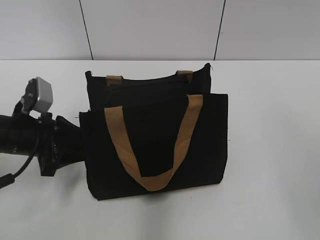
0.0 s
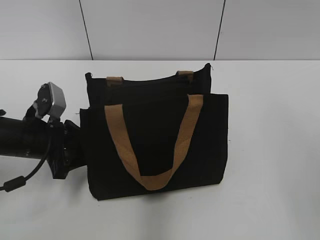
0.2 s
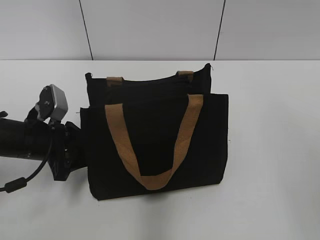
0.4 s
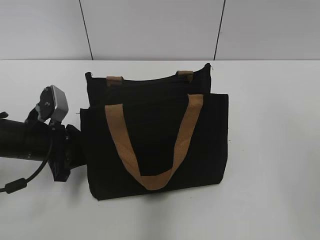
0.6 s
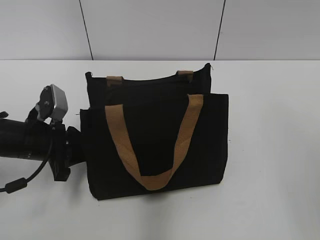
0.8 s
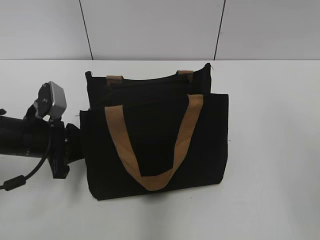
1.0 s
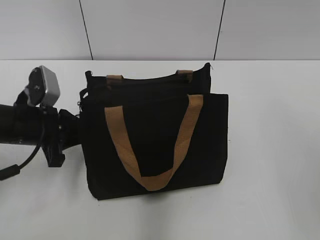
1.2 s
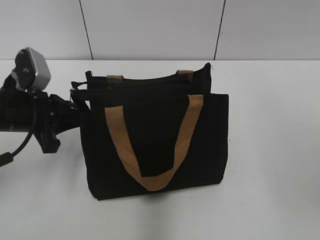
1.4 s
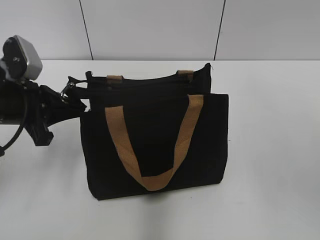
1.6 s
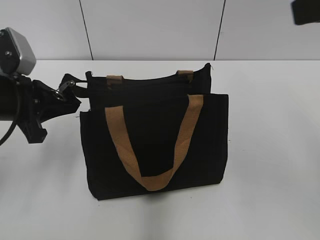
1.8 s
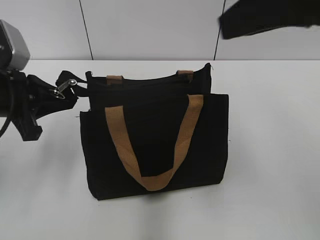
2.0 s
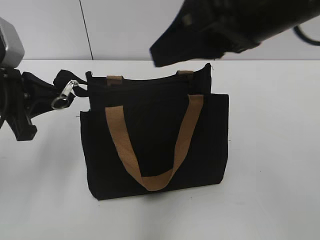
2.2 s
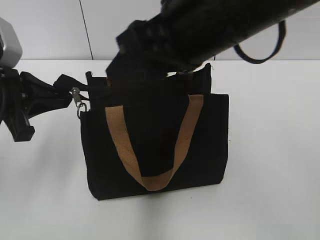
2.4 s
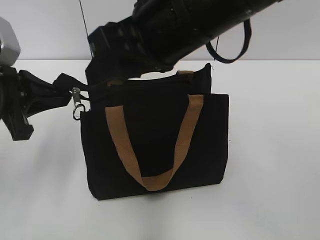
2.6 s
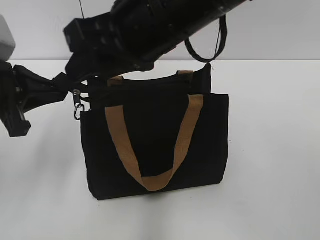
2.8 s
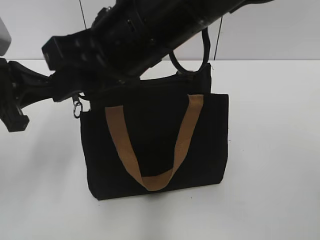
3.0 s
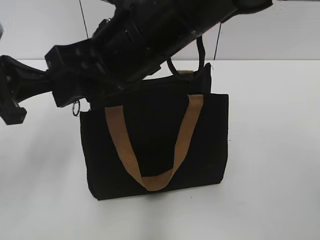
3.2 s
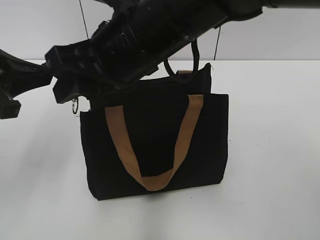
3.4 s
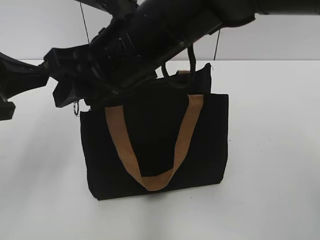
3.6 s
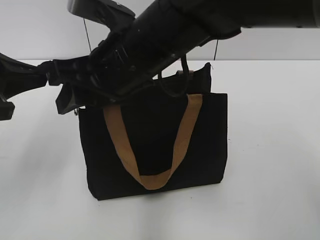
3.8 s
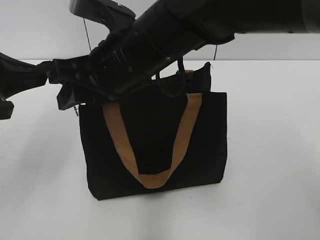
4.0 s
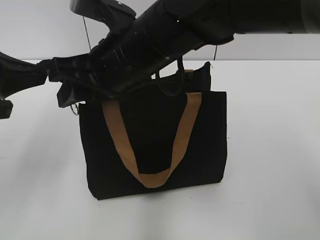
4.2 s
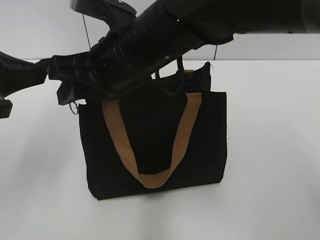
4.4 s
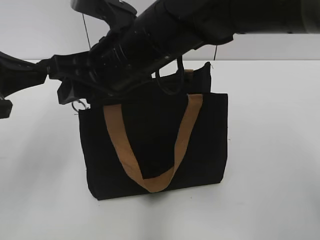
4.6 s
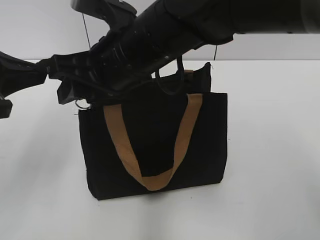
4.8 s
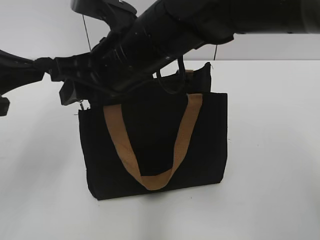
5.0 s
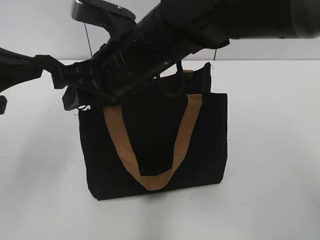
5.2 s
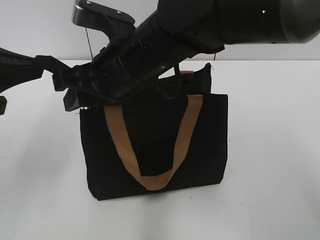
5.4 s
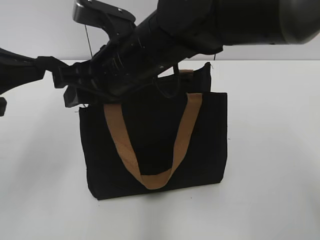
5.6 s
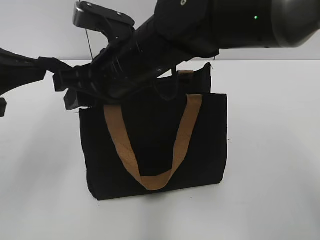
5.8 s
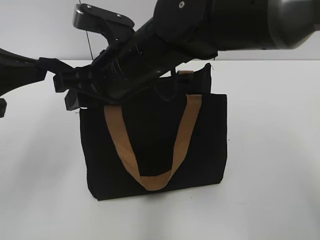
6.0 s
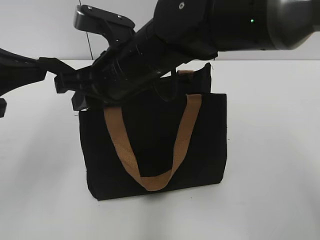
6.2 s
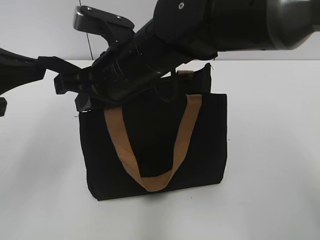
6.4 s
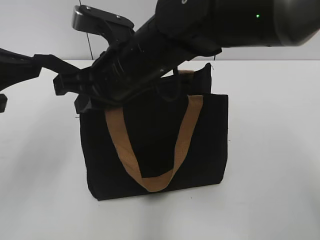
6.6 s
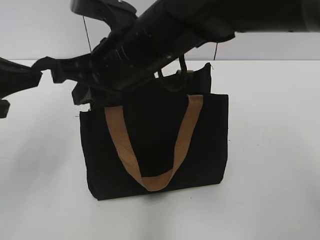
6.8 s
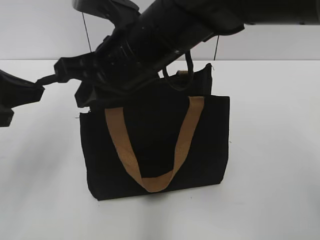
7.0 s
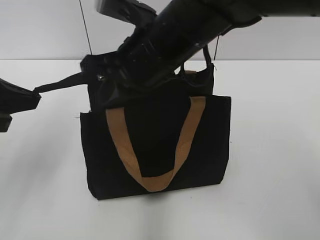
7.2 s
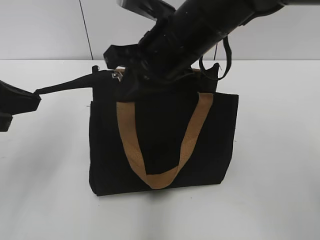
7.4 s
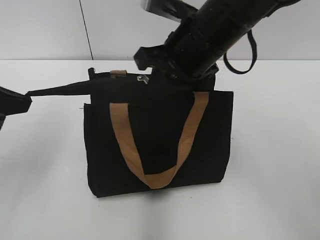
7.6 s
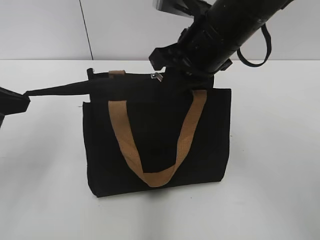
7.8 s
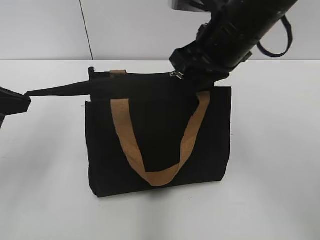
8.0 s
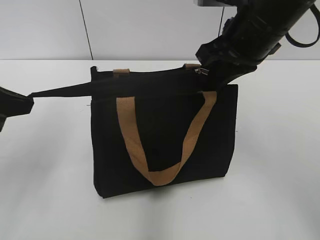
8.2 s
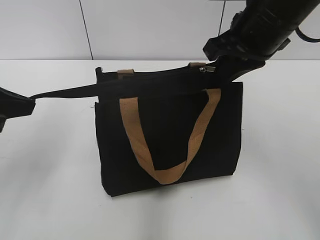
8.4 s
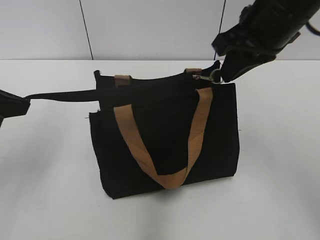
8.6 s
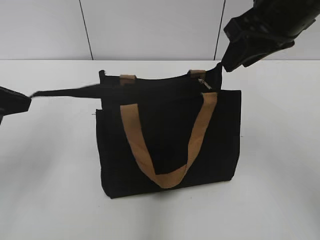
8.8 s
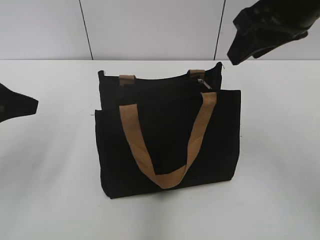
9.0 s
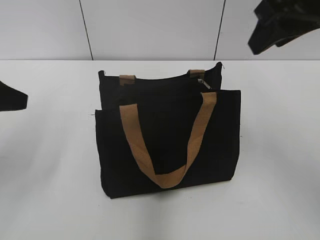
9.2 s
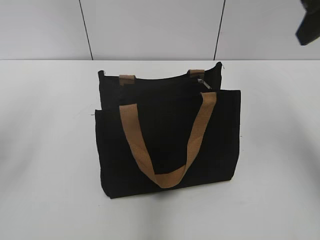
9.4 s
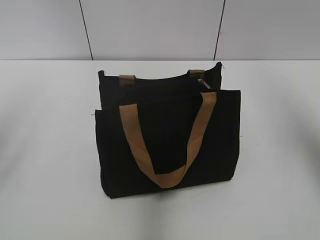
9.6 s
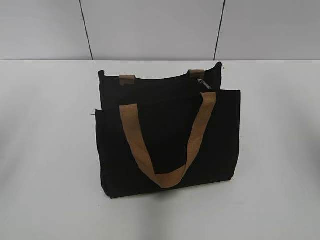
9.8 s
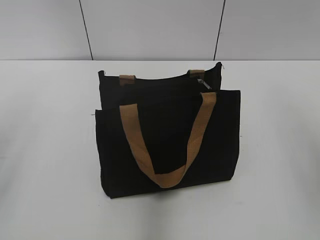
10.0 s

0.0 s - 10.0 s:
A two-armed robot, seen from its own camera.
Step, 0.0 s - 8.6 s: Zip up the bag with your right hand.
0.0 s - 1.4 s: The left gripper closes up.
1.4 s - 2.8 s: The left gripper goes some 5 cm upward; the right gripper goes roughly 25 cm to the left and forward.
2.8 s - 4.2 s: The right gripper shifts about 5 cm downward.
4.2 s - 5.8 s: There are only small adjustments of the grippers.
5.8 s - 7.2 s: The right gripper closes up.
7.2 s - 8.6 s: The right gripper travels to the right by approximately 15 cm.
8.6 s - 10.0 s: The left gripper heads upward, covering approximately 10 cm, and opens up; the right gripper heads backward, to the right and upward, covering approximately 20 cm, and opens up.

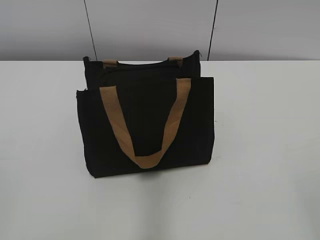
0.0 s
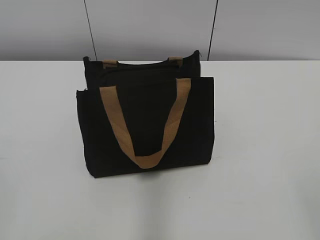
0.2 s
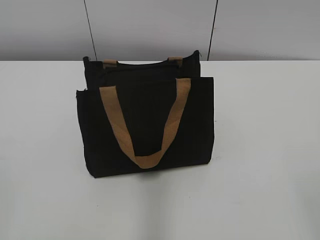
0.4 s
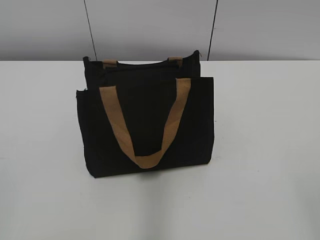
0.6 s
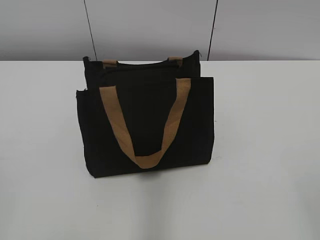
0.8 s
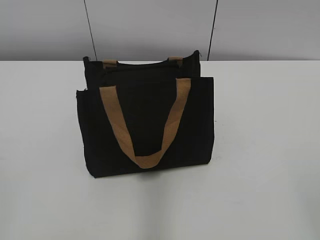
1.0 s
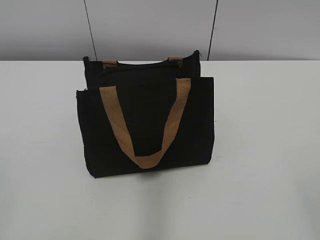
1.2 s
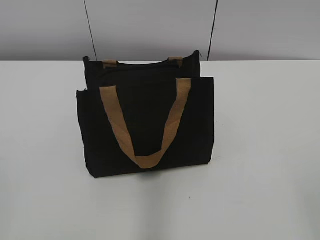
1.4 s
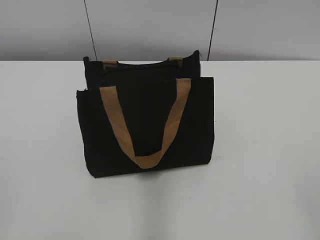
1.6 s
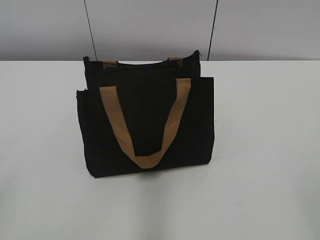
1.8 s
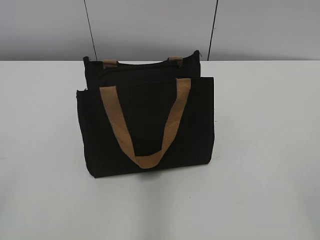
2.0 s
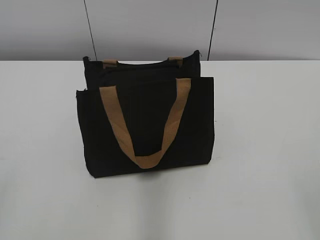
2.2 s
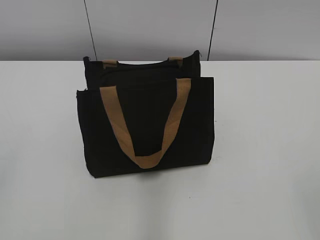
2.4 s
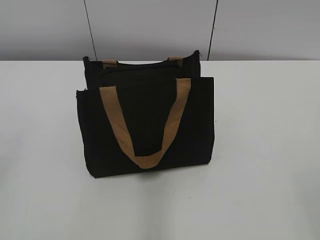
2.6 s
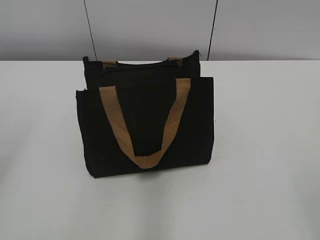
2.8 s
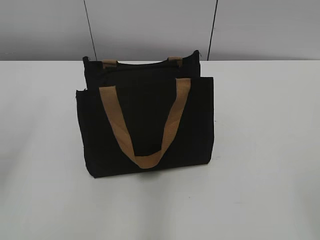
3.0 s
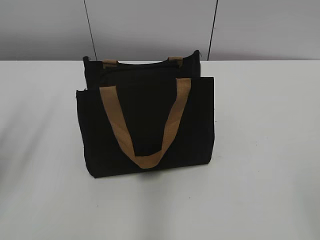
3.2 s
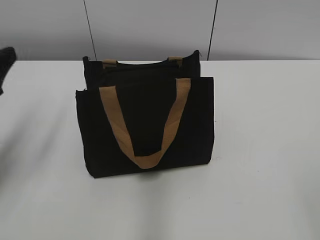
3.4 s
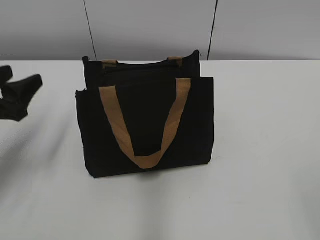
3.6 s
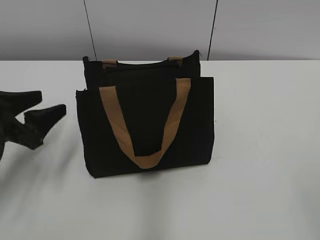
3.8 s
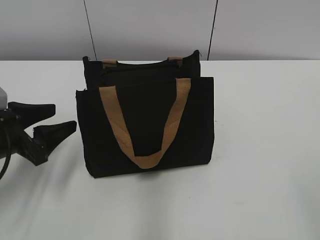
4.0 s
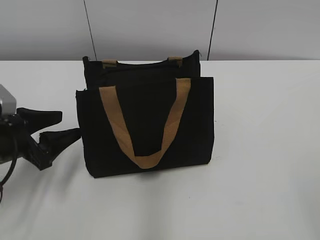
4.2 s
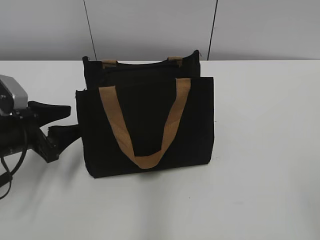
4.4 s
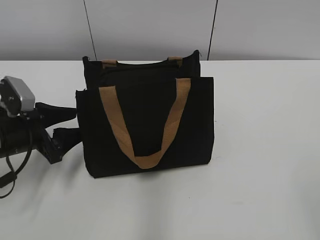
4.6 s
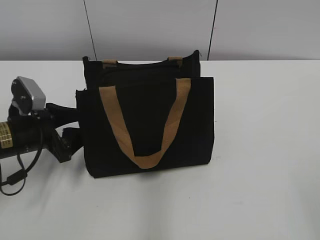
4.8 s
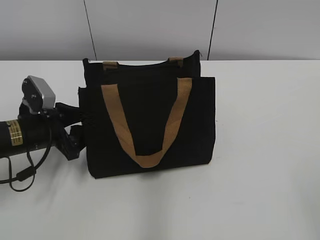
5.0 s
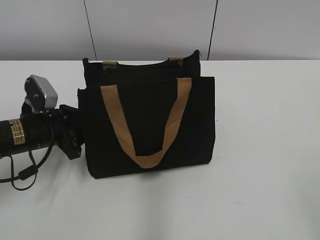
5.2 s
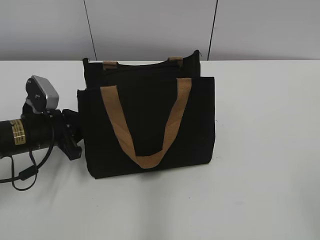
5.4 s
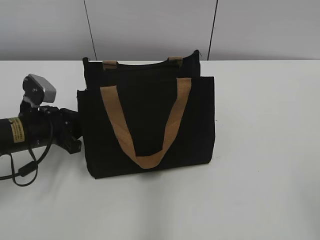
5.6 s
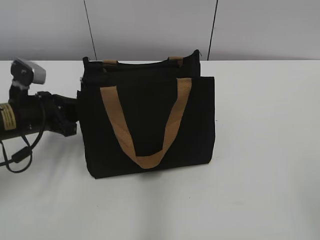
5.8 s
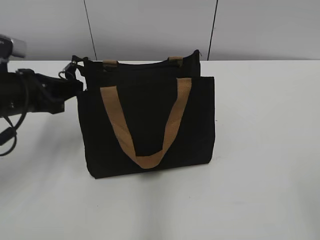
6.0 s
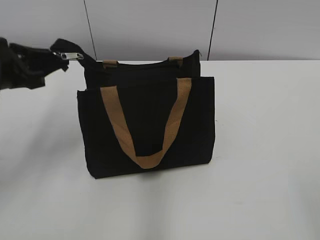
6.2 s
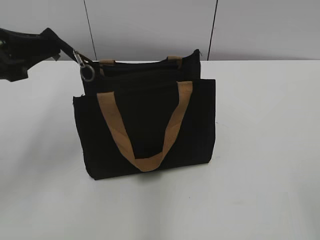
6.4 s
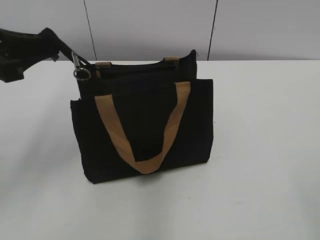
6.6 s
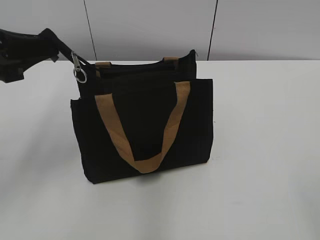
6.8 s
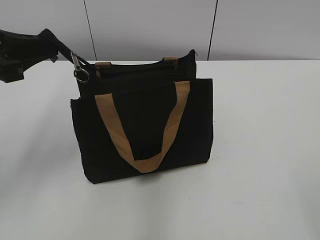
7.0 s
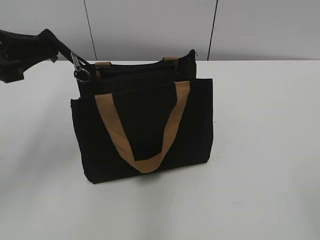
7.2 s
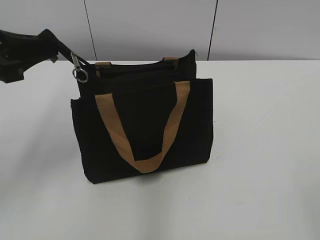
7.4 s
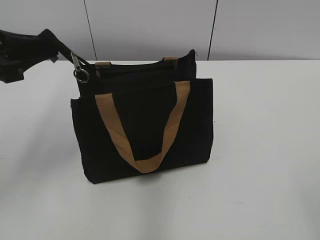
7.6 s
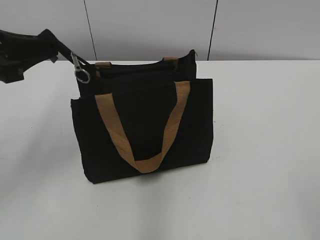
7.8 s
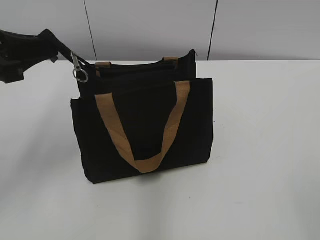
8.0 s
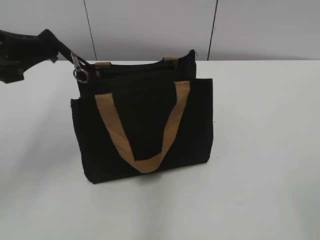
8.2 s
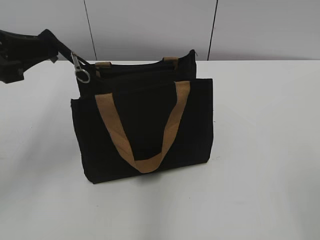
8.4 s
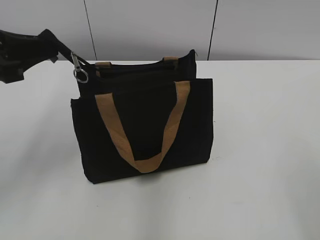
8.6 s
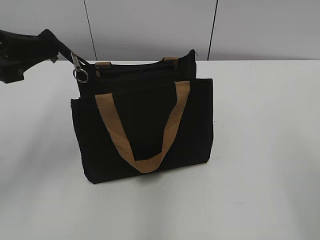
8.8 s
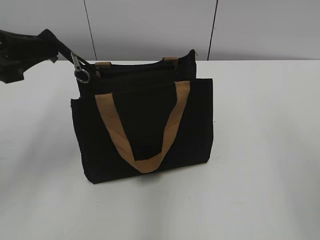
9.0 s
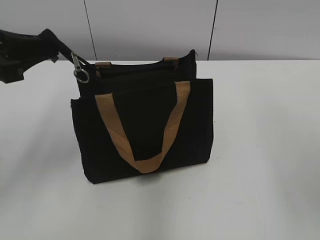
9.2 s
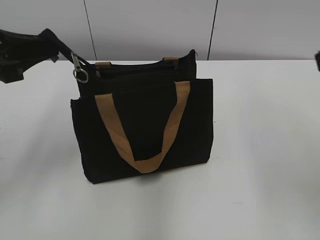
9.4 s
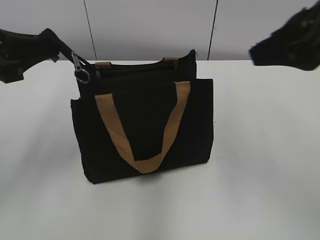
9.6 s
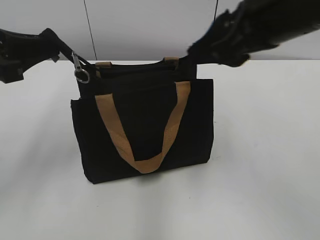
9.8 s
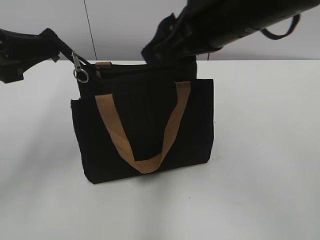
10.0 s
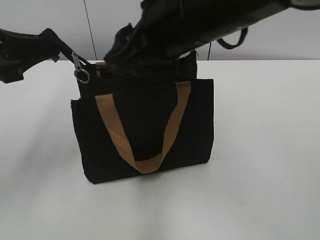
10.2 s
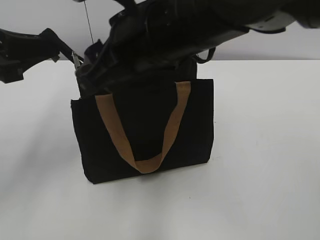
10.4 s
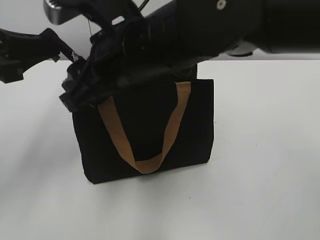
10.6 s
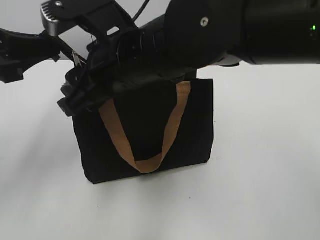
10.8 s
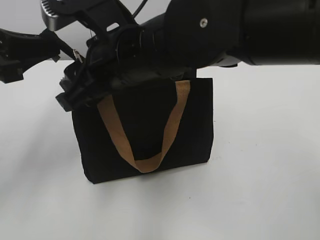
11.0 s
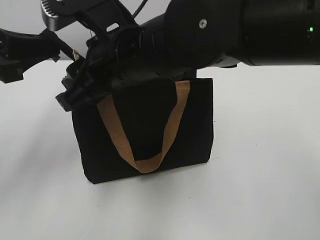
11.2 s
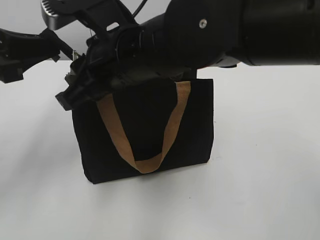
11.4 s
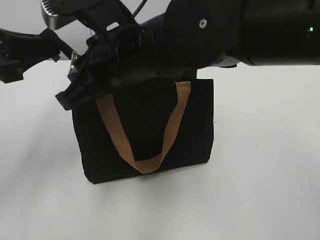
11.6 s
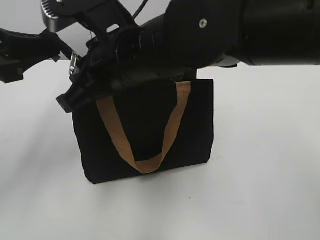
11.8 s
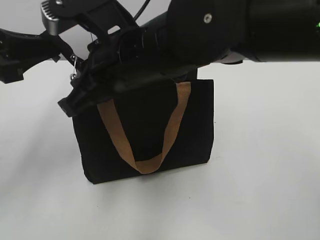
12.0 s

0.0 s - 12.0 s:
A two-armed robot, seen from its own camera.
3.0 s - 4.4 s: The left gripper heads downward and forward, covering some 20 cm.
4.4 s - 6.0 s: The left gripper heads upward, covering some 5 cm, and closes its fingers.
6.0 s - 7.6 s: The left gripper moves upward and backward, some 10 cm.
9.0 s - 10.4 s: The right gripper moves to the left and forward, about 30 cm.
10.4 s - 12.0 s: The right gripper closes.
